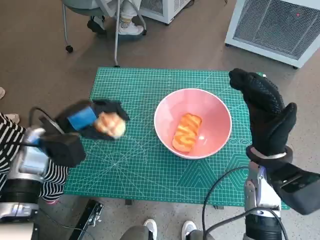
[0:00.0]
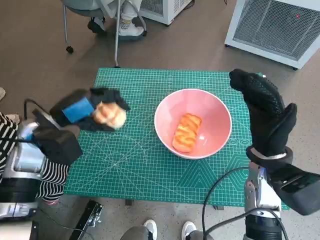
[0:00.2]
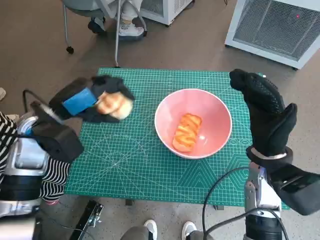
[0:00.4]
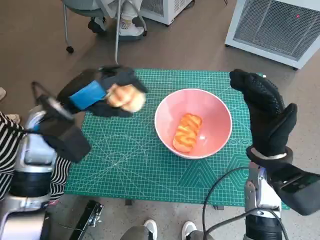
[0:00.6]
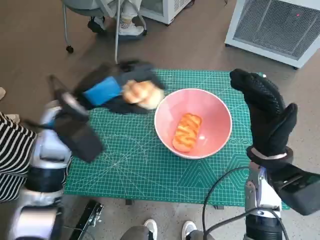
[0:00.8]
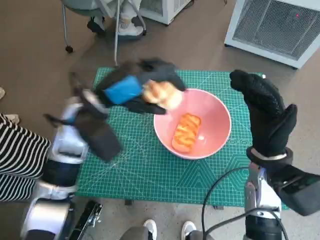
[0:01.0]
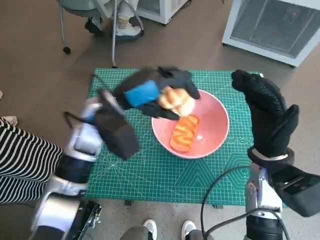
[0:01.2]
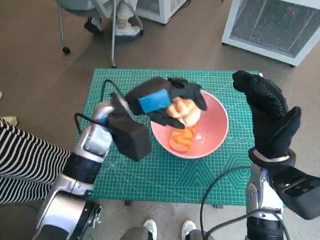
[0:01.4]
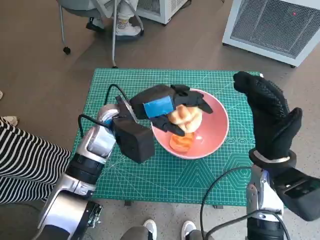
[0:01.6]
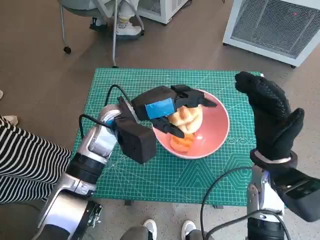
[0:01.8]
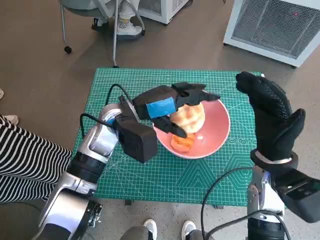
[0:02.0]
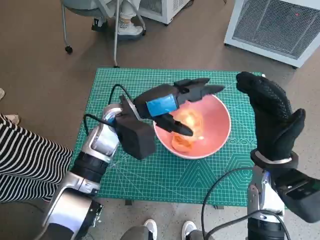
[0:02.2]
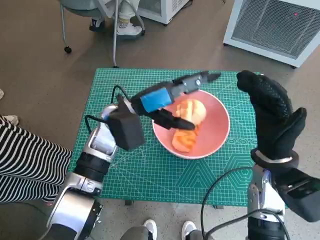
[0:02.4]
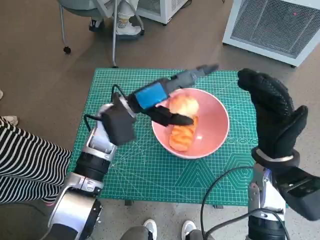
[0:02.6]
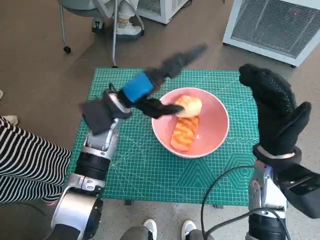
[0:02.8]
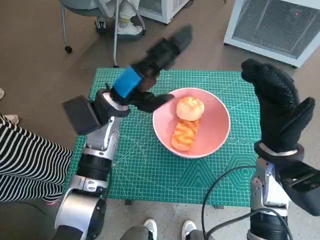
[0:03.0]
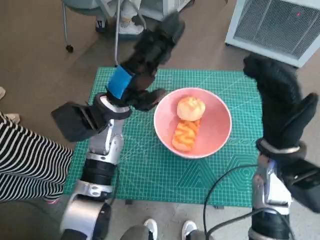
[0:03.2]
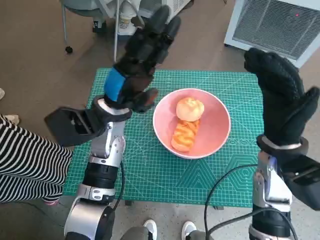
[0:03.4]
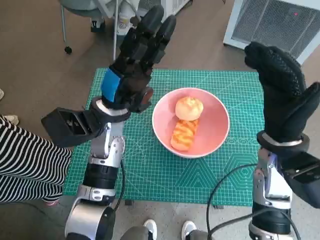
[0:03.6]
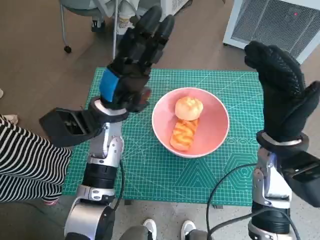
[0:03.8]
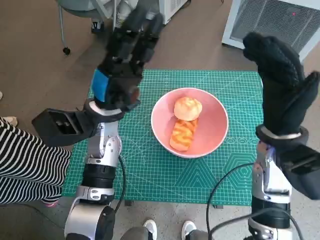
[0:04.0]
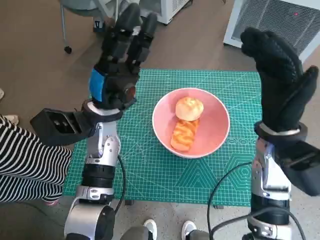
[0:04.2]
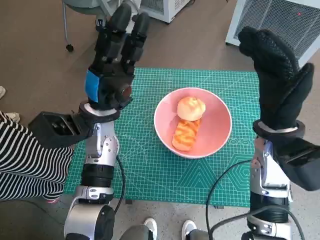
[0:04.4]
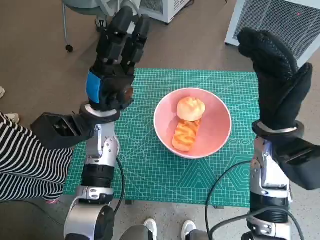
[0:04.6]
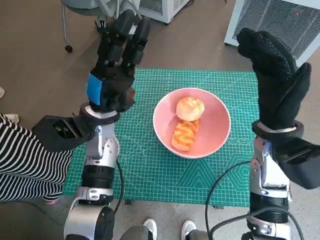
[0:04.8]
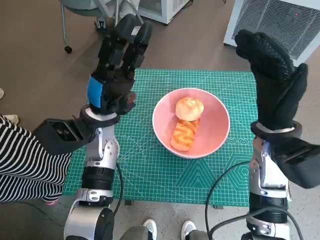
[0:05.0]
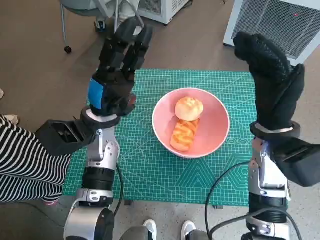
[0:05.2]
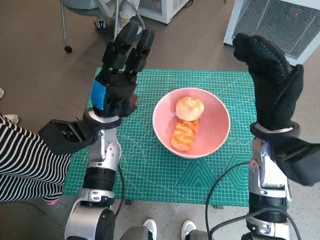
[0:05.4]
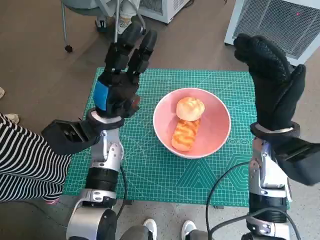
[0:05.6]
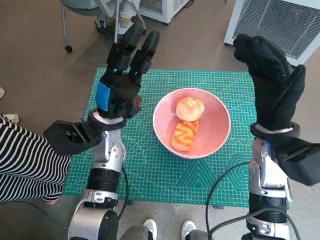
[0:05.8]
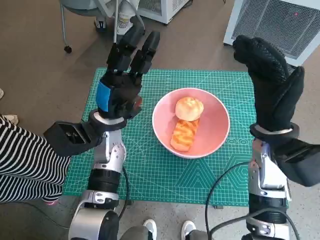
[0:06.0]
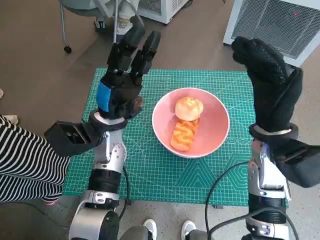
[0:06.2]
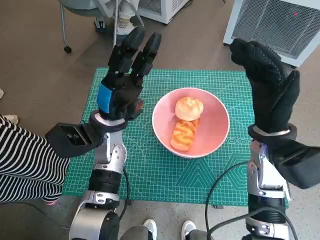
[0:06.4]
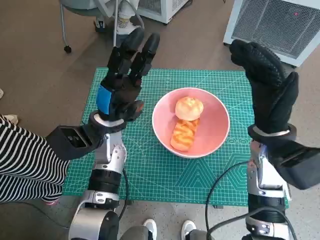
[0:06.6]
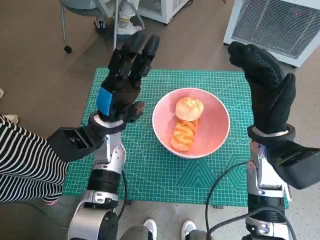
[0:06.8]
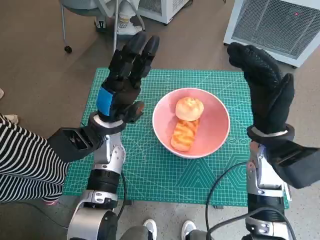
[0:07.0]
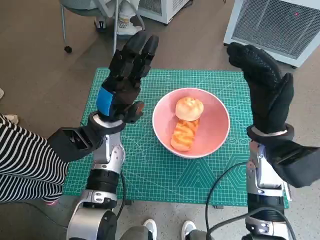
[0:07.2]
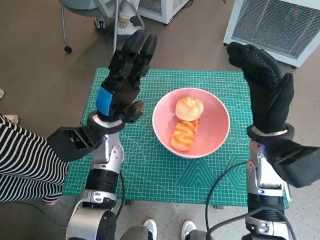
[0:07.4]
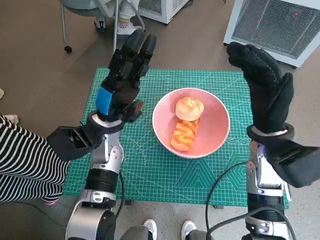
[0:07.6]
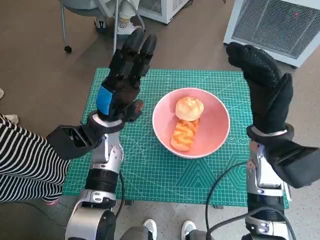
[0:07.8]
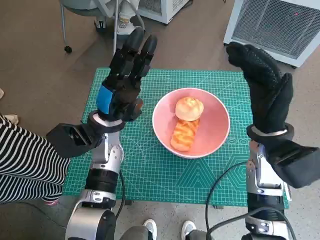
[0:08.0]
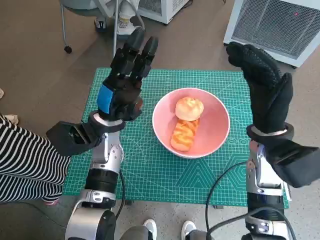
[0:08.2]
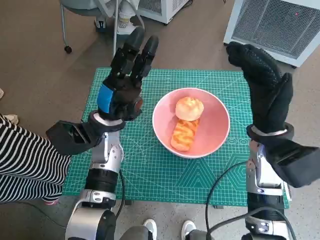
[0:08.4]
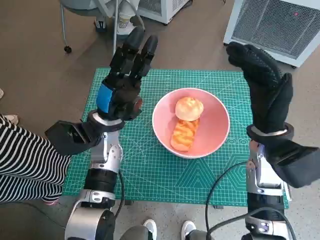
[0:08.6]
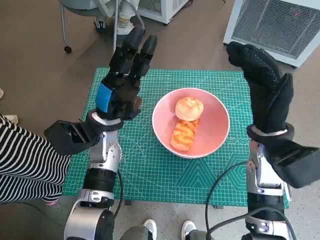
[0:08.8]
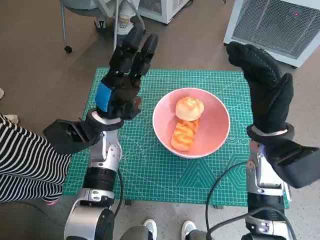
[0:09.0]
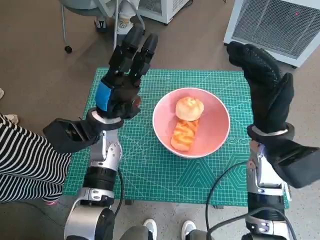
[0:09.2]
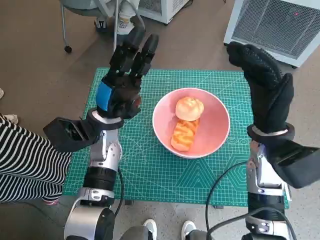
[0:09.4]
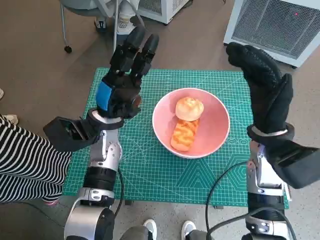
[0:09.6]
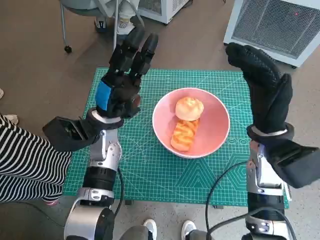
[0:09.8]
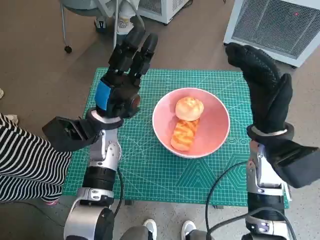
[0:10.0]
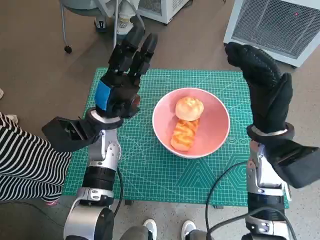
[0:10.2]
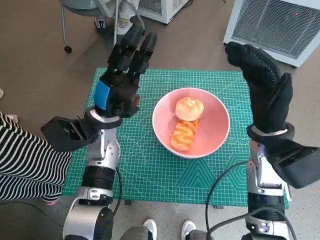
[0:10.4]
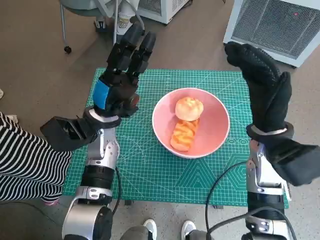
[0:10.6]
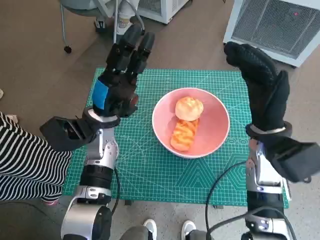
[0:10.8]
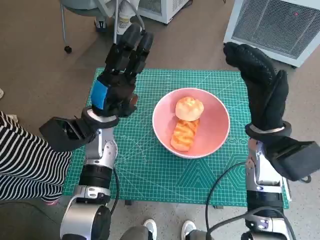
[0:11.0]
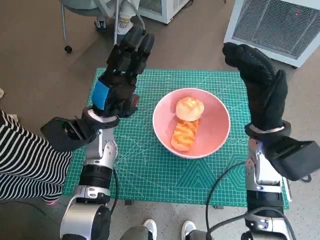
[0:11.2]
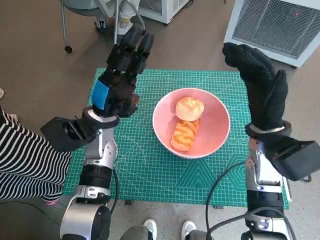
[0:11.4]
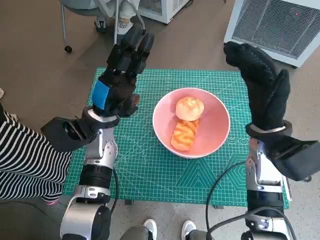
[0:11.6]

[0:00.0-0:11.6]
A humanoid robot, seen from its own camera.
Task of the whole recording: Push the bowl into the center of the table and put the bread into the bowl.
Step, 0:00.0 to 0:02.8: Place the round bread in pink bowl with left hand.
0:00.0 to 0:01.4: The left hand heads to the right, covering some 15 cm.
0:05.8 to 0:07.2: Both hands stay put.
0:07.2 to 0:08.8: The two hands keep their place.
0:08.8 to 0:11.6: The two hands keep their place.
